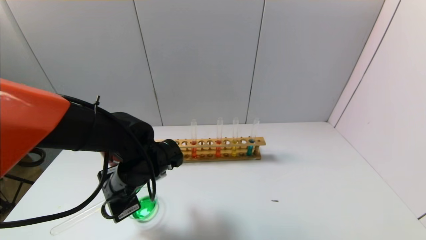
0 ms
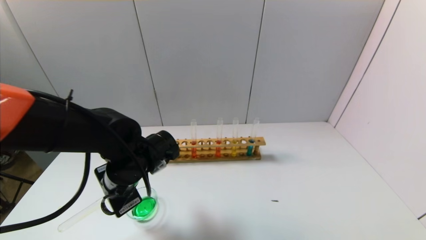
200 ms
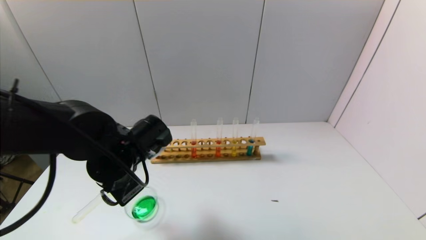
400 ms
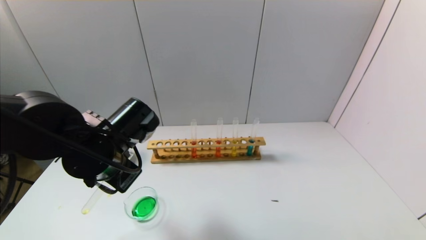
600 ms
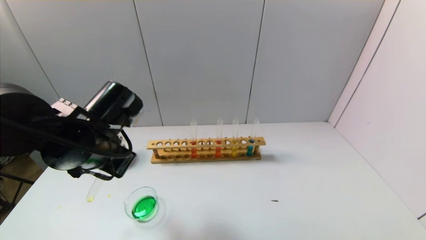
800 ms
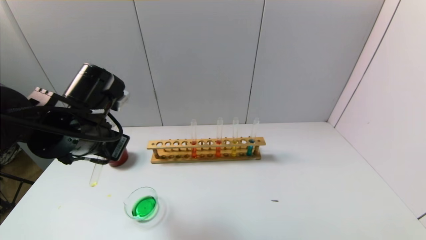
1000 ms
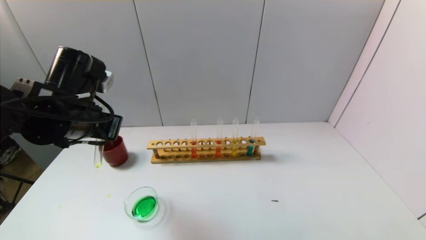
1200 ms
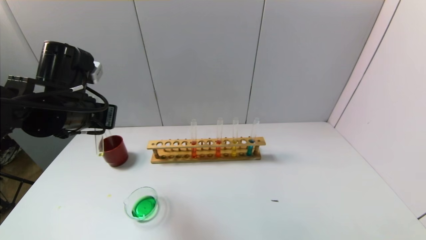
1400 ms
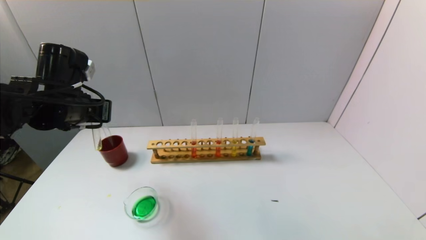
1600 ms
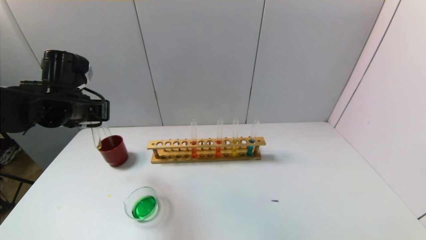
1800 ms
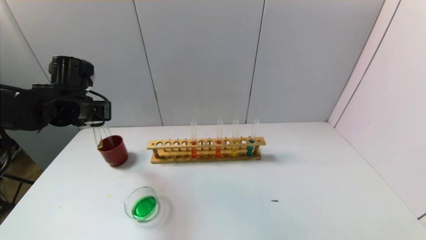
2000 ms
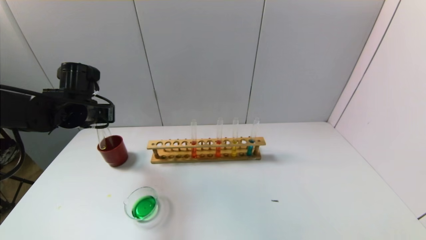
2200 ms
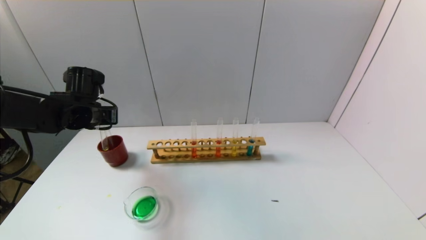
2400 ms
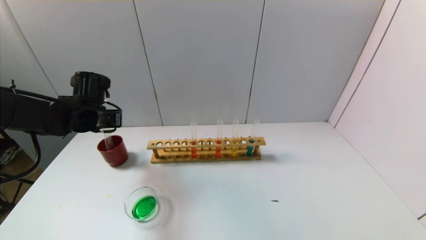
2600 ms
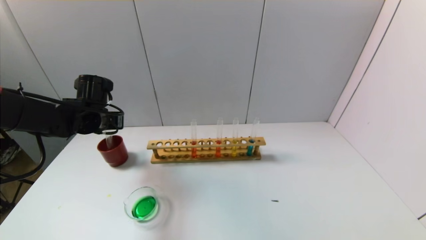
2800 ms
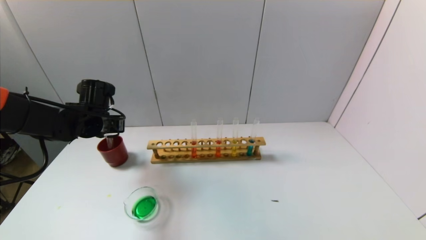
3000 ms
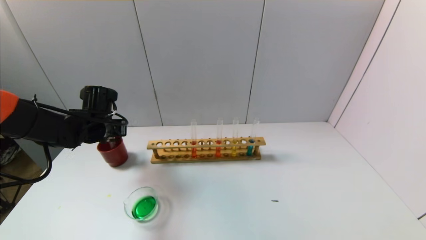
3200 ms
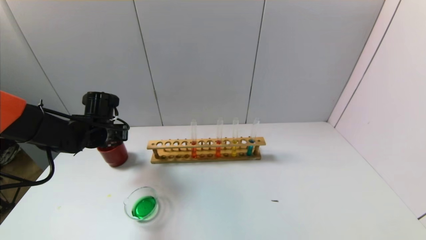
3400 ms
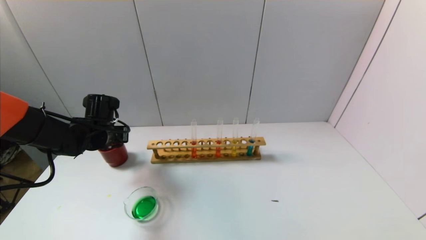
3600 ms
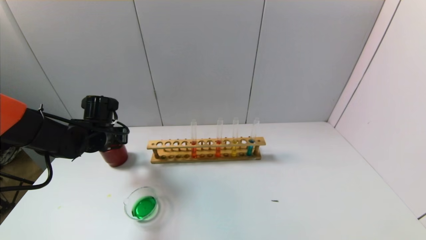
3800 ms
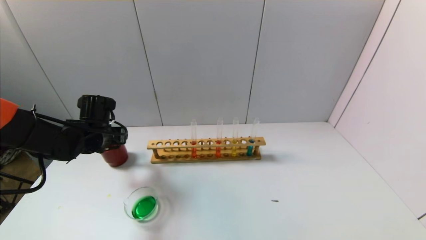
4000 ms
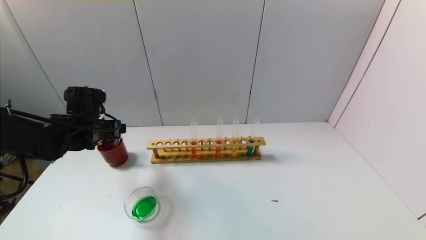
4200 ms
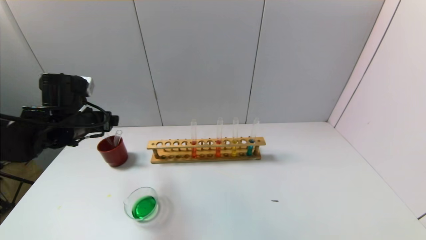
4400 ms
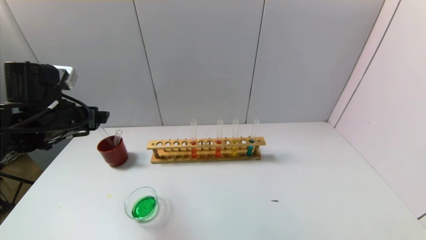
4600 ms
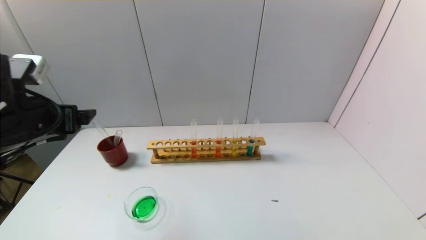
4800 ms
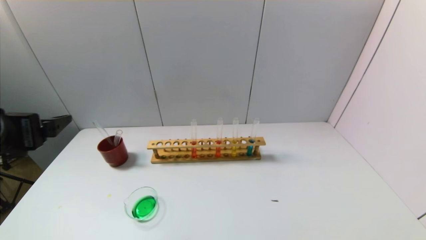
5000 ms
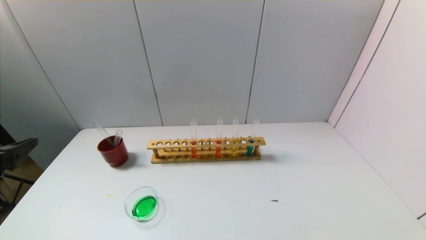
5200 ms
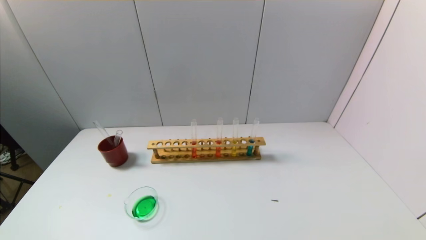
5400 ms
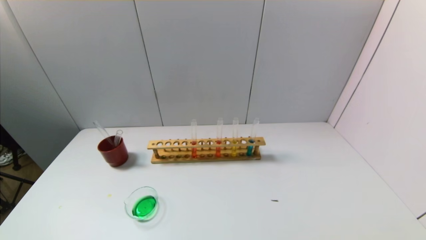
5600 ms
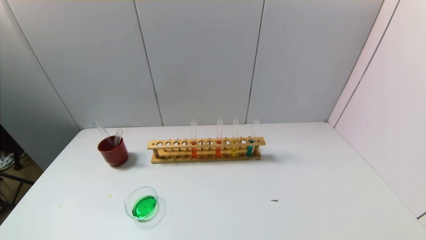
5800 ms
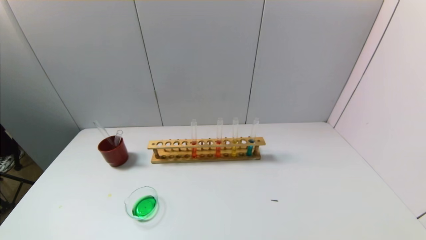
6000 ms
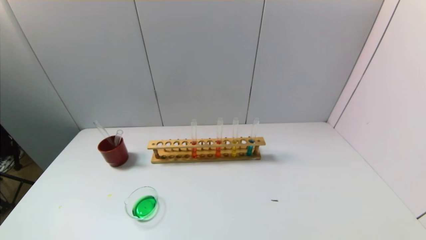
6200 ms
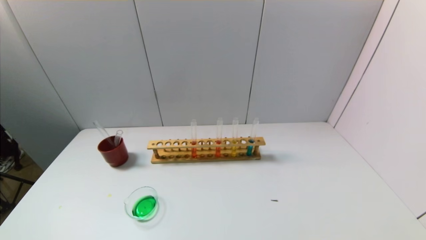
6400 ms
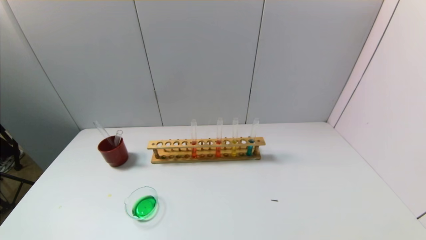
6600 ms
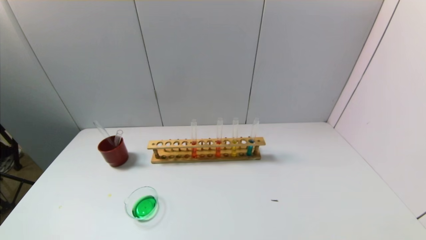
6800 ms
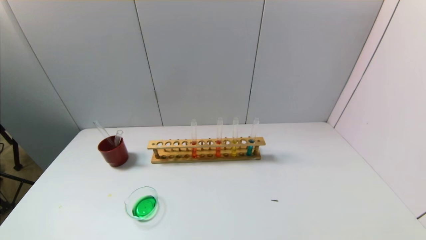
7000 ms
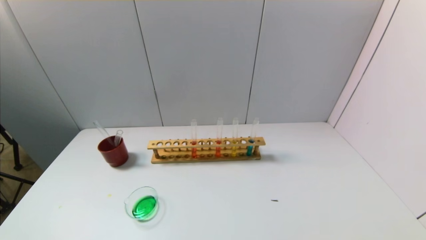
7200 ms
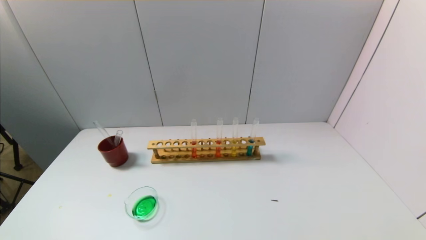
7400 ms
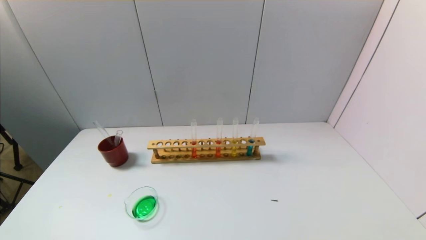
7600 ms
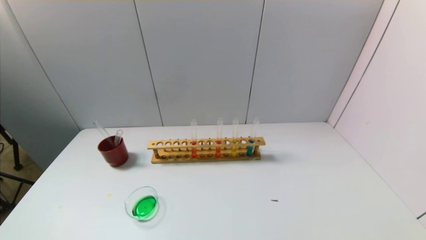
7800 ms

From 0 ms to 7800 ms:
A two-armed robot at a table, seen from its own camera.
Task of the whole recording: pick up the test tube with yellow pigment and the test tube with blue pigment by grippers and pour them into the beaker.
From 0 ms to 1600 ms: The left gripper travels upward and to the left by roughly 15 cm.
From 1600 ms to 3200 ms: The left gripper moves downward and forward, some 15 cm.
From 3200 ms to 4600 ms: The left gripper goes approximately 15 cm backward and upward, and opens up.
From 4600 ms to 6200 ms: The left gripper travels backward by about 30 cm.

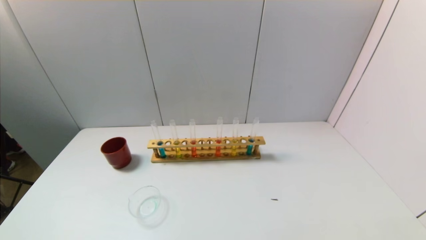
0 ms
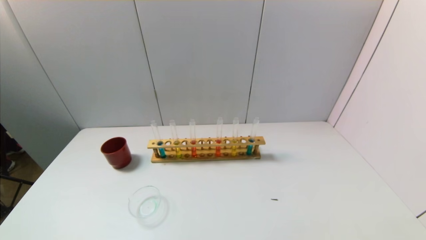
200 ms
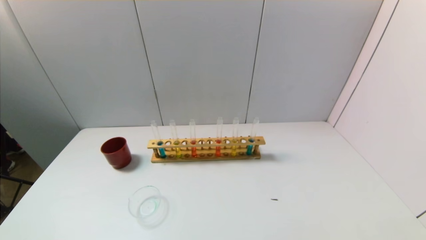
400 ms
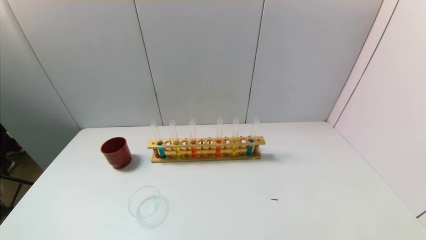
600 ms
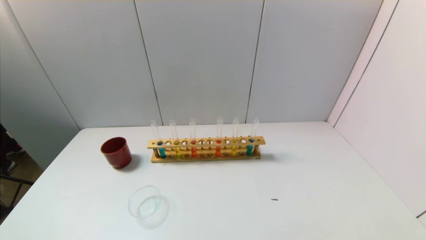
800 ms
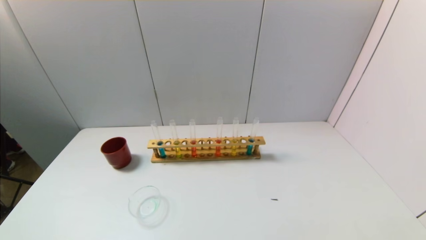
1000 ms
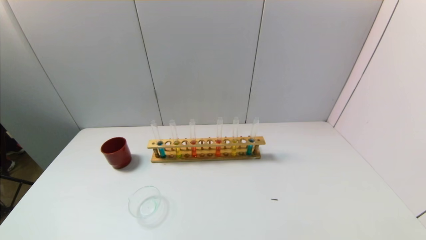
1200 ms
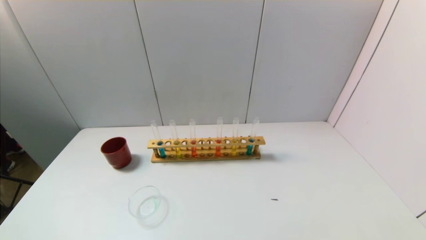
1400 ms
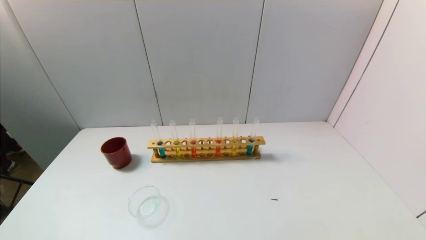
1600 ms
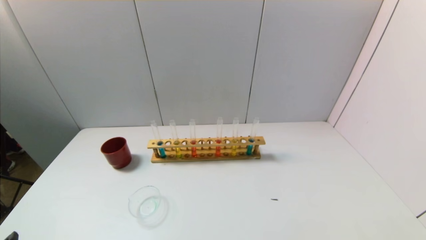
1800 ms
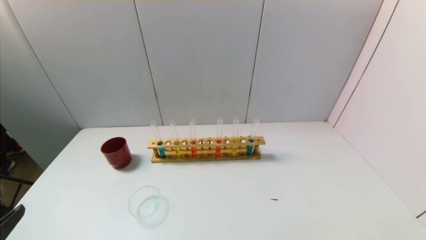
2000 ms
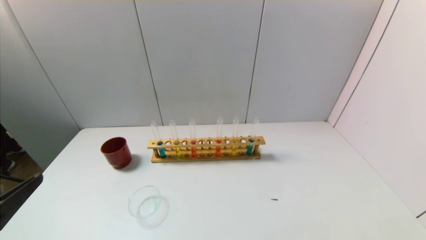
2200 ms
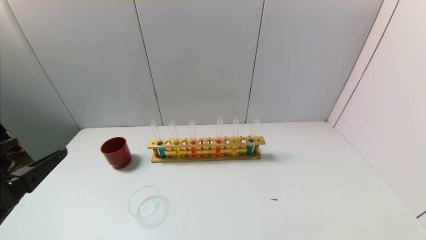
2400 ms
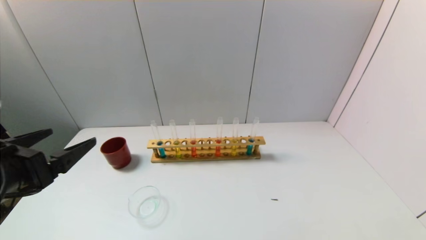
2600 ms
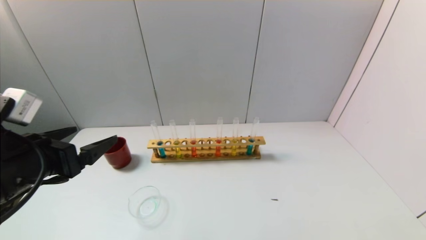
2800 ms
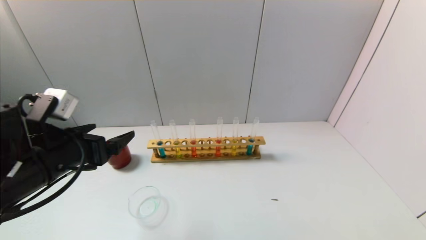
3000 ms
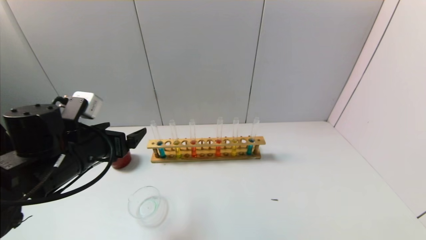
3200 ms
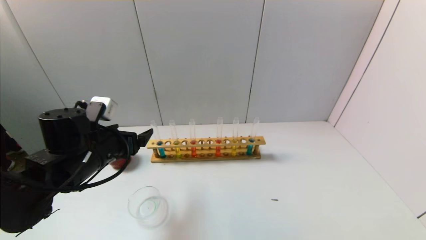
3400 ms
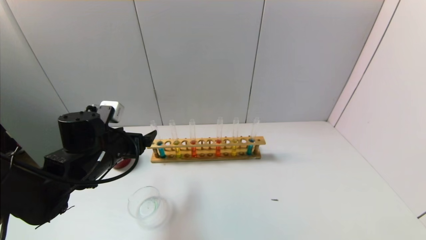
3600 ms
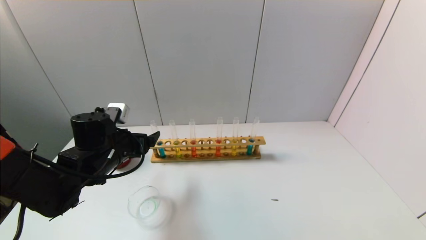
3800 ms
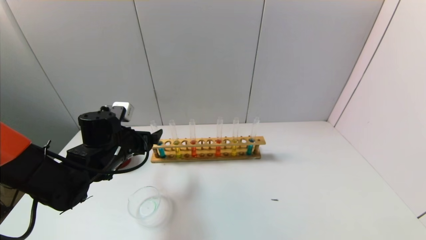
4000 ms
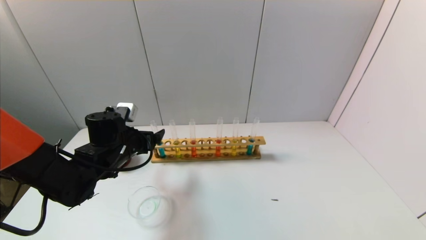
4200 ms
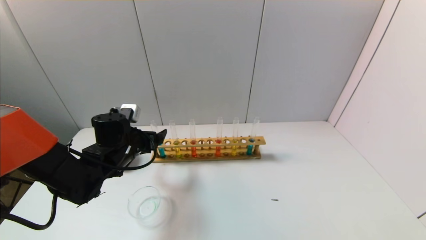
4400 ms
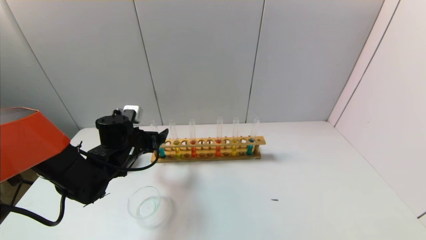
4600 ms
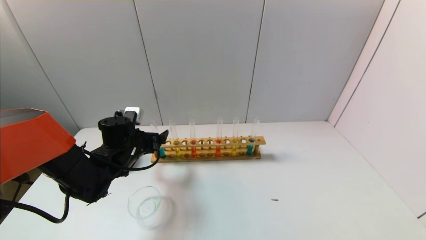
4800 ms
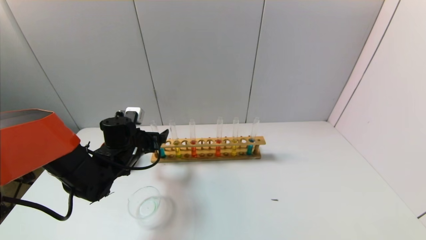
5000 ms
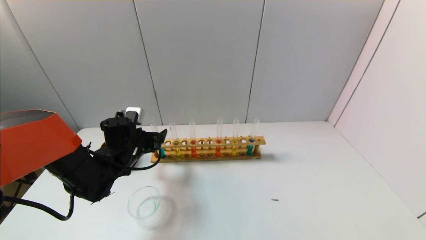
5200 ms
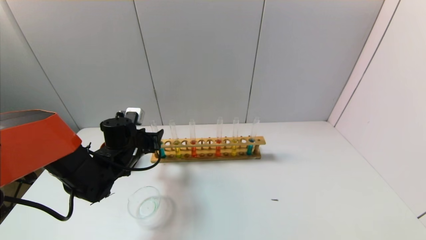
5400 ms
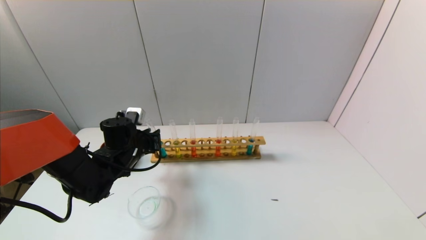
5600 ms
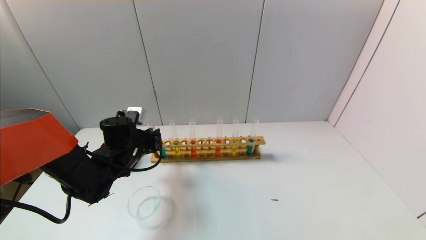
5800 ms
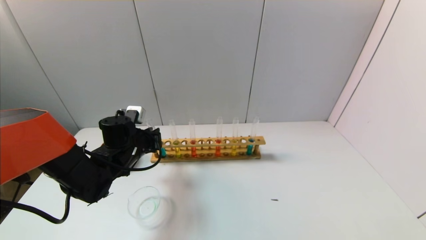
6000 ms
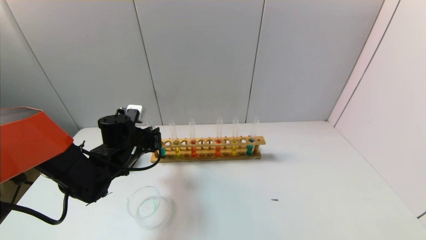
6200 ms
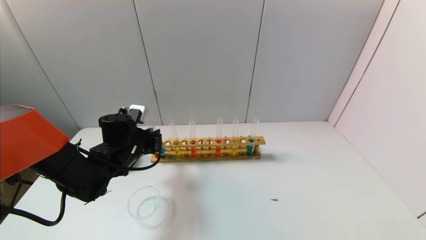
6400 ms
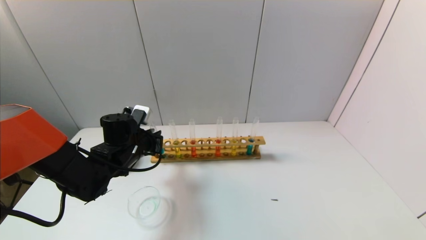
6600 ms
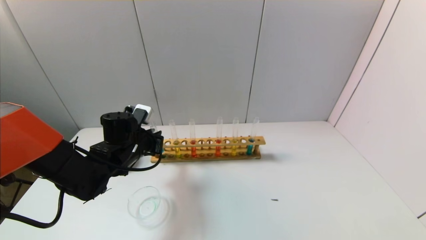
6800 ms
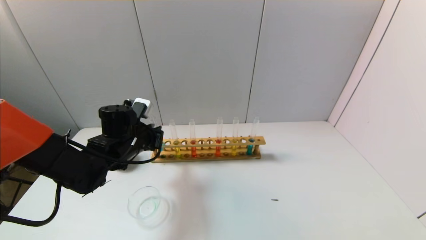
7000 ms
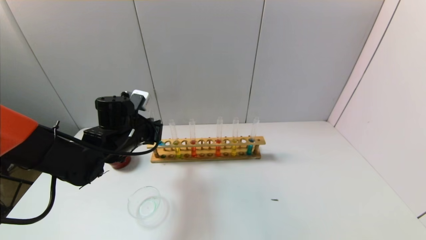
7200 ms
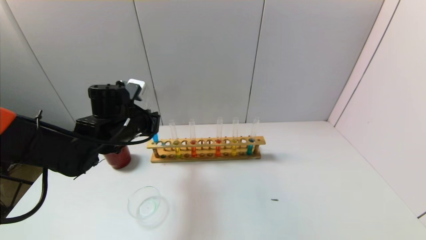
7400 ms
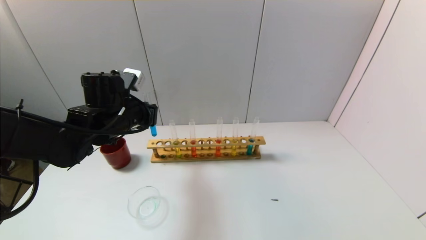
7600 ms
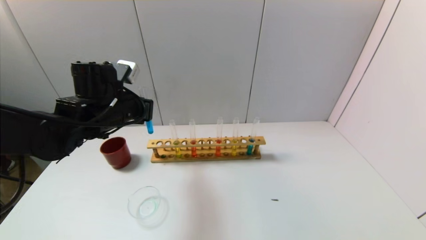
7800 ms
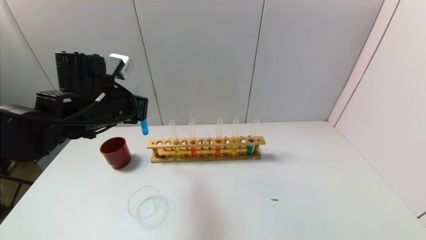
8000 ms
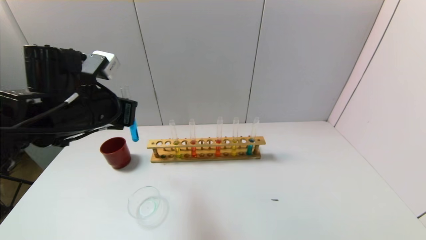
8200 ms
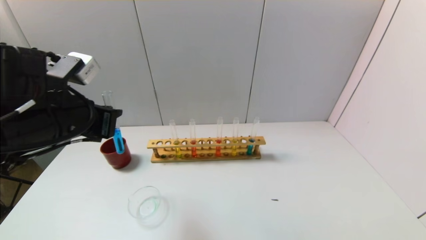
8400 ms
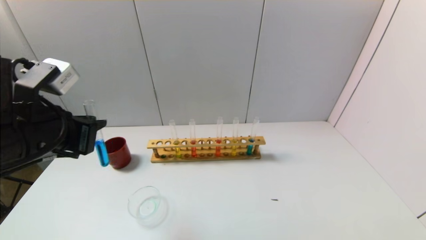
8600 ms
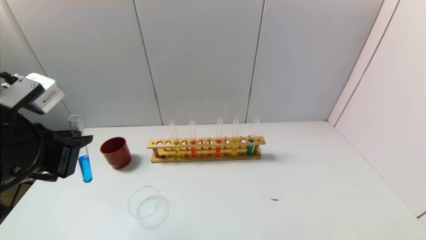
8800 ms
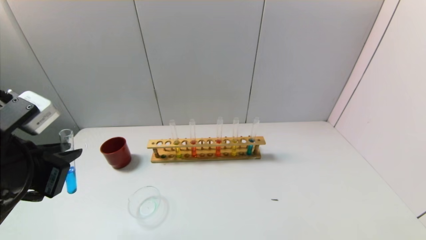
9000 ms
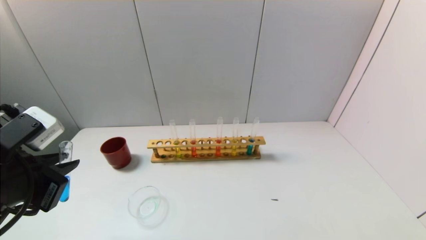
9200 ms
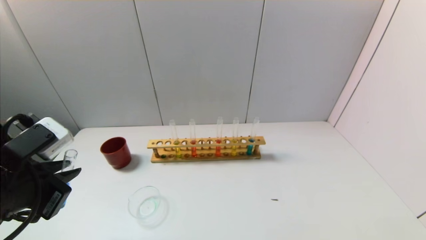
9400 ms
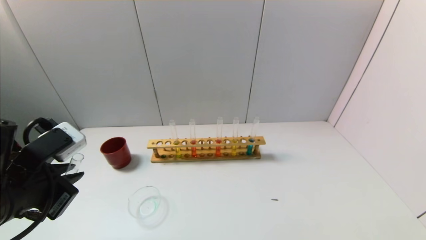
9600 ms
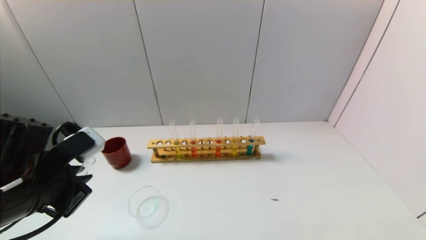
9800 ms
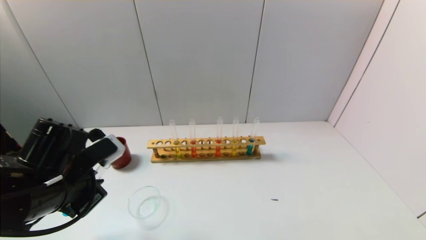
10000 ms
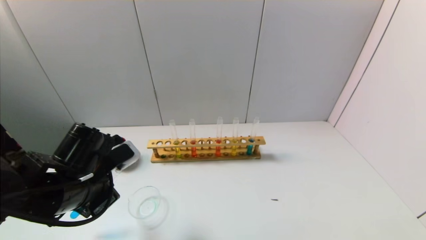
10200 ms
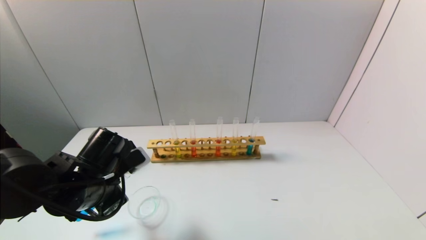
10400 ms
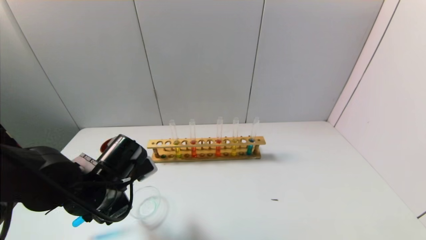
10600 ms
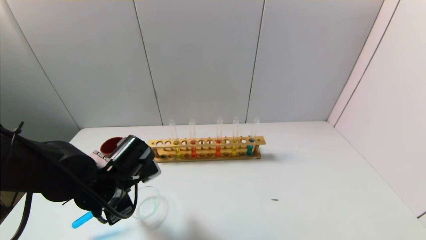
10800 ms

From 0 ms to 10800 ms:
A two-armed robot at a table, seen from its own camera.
Task of the whole recording: pick up the test tube with yellow pigment and the test tube with blue pigment by grippers and pour them into the beaker.
Step, from 0 ms to 6400 ms: Grasp the blue reagent with the left gripper.
From 1600 ms to 3000 ms: The left gripper moves forward, approximately 20 cm.
From 3000 ms to 4600 ms: The left gripper travels forward and downward by approximately 15 cm.
From 4600 ms to 6200 ms: The left gripper closes its fingers.
From 6200 ms to 7800 ms: The left gripper heads upward, covering some 10 cm.
From 7800 ms to 9200 ms: The left gripper goes about 20 cm backward.
From 9200 ms to 10800 ms: The left gripper moves downward, forward and to the right, some 15 cm.
